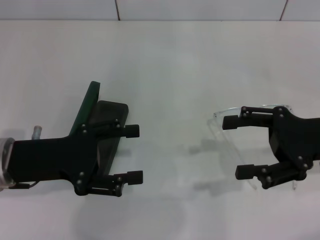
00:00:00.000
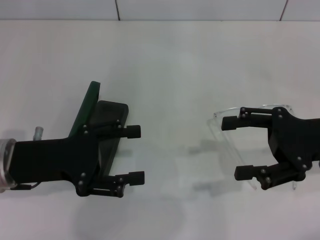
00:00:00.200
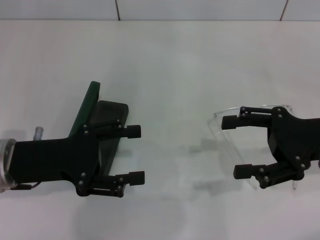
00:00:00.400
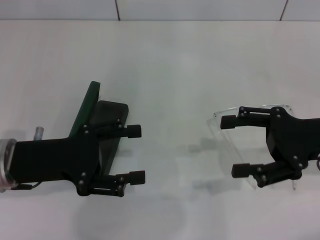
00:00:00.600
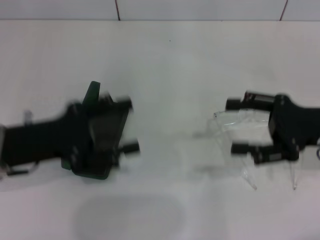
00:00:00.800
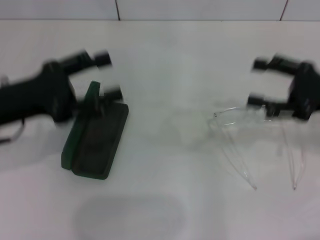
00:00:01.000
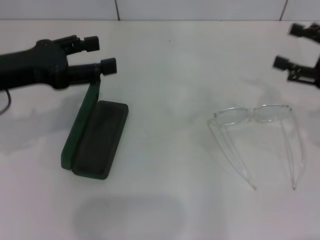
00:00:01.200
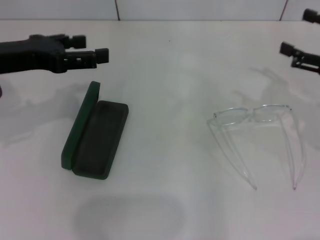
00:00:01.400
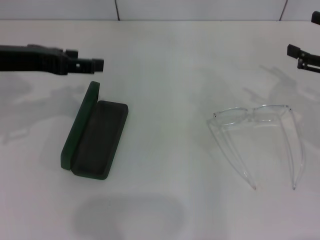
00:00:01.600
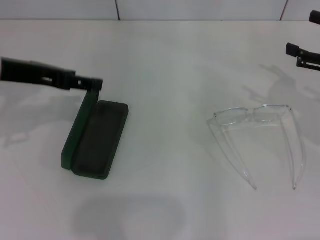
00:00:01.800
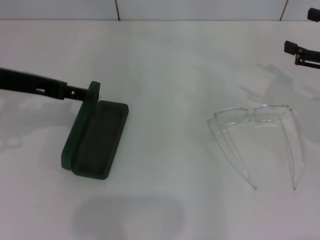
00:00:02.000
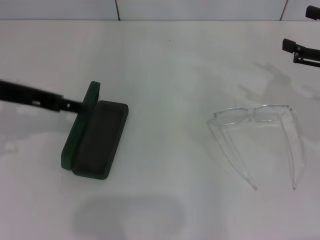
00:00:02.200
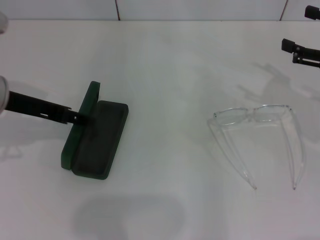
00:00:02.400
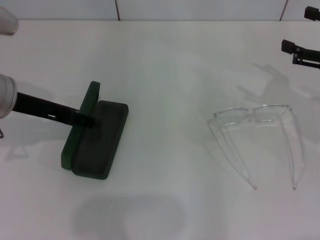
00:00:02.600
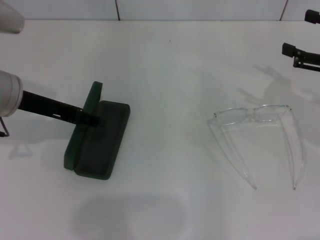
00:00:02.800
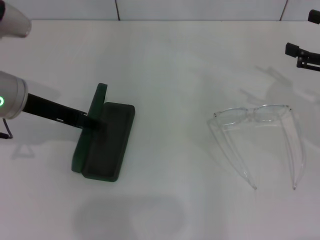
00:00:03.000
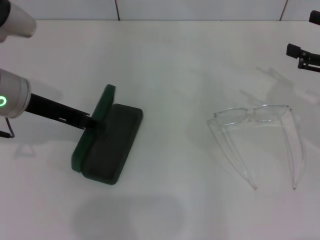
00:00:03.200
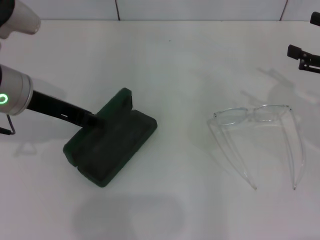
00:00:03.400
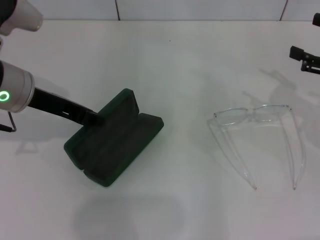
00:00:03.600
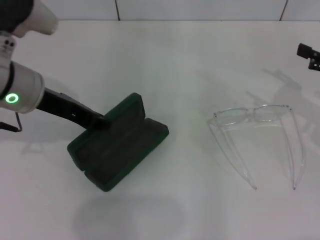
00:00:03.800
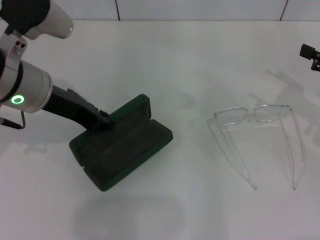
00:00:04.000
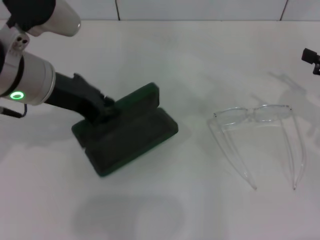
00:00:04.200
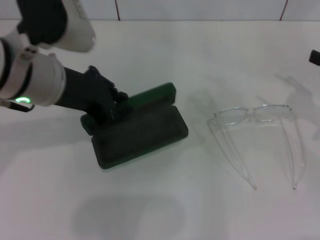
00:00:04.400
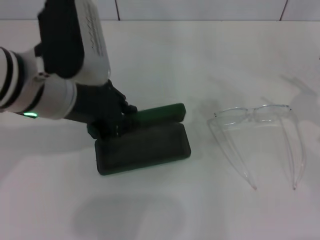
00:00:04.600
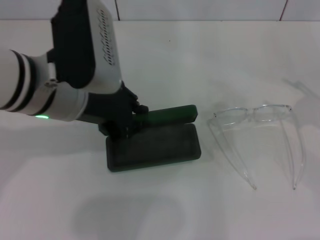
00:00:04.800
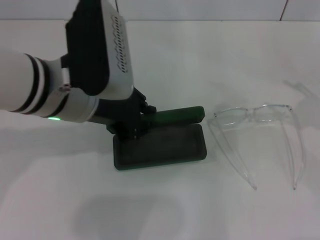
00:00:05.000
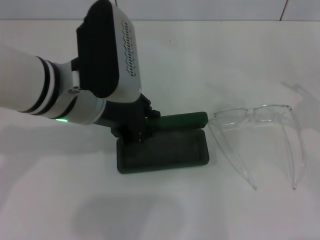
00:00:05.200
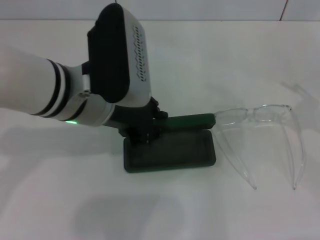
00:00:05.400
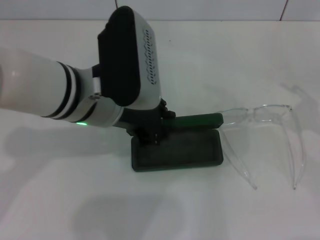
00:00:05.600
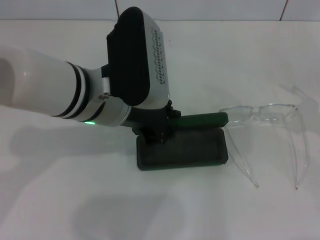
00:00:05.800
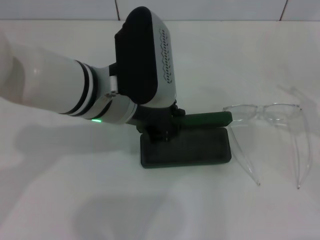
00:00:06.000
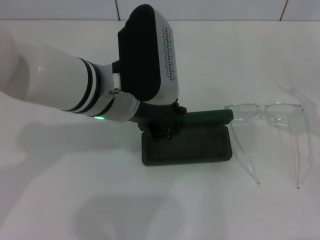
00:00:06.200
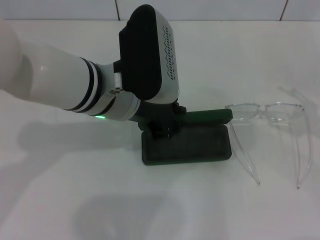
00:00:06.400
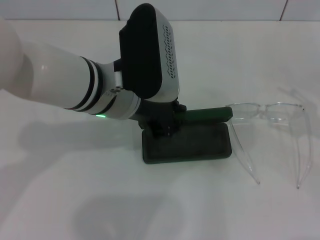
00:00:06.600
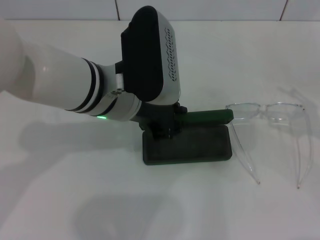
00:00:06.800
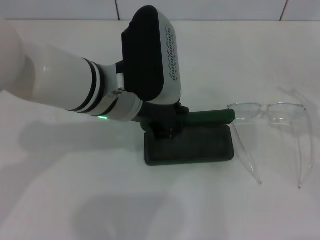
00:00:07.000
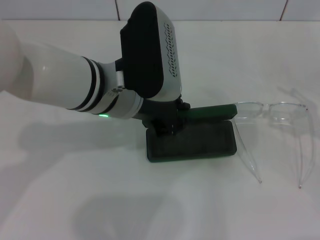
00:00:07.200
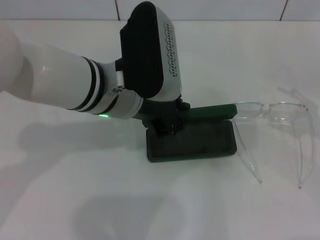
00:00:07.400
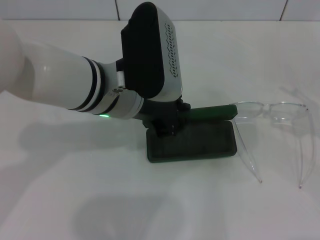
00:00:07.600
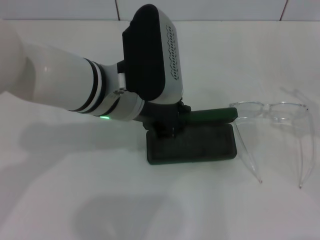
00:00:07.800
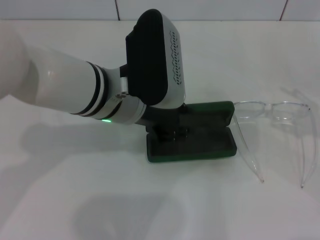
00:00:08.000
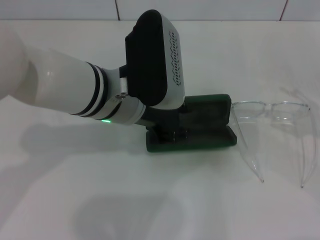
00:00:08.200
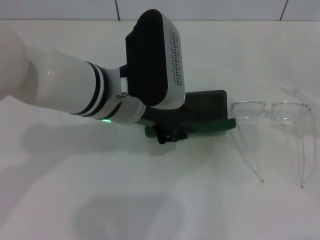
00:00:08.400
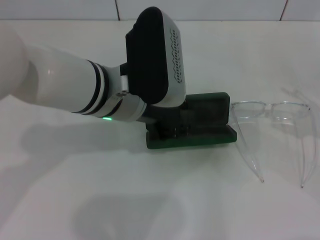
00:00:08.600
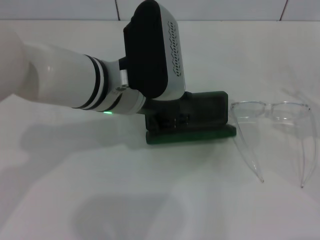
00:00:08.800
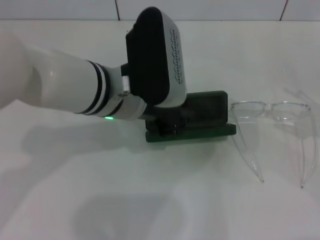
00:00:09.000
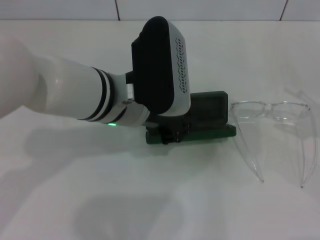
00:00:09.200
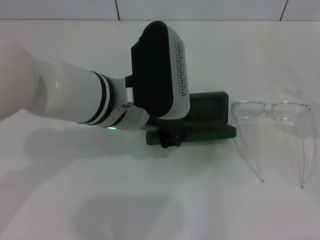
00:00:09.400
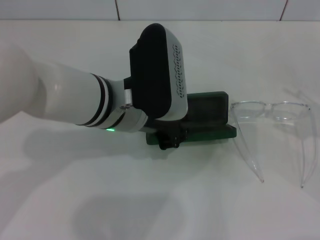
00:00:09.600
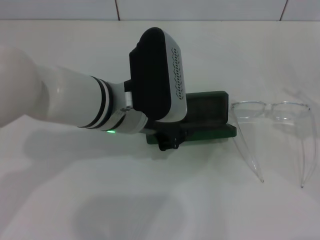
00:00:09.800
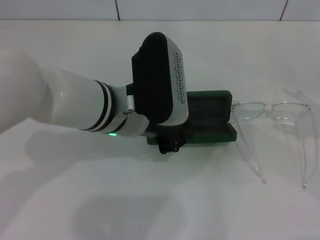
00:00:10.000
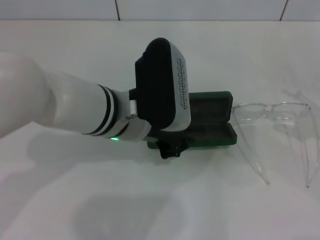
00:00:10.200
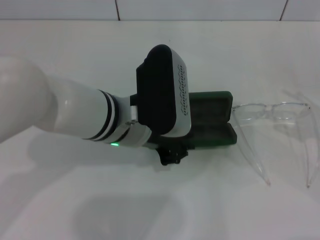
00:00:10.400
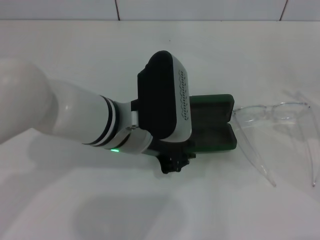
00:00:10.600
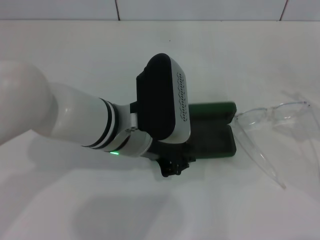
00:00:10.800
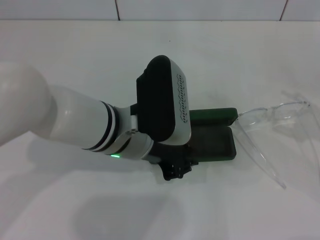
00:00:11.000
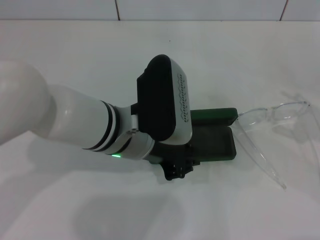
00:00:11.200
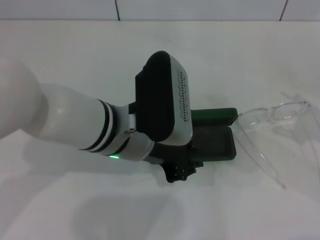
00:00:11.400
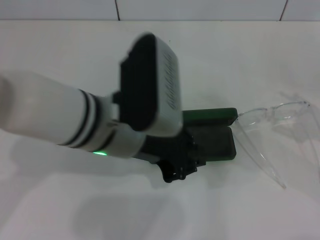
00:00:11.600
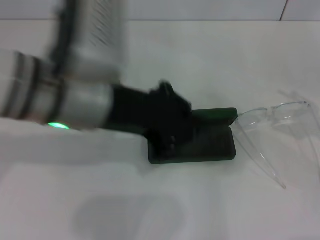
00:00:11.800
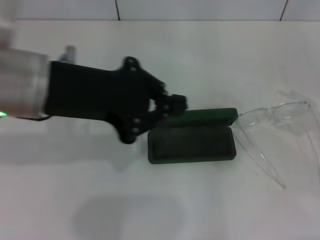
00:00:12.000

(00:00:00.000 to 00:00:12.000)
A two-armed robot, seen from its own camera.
Step, 00:00:00.000 - 00:00:03.400: Grab the glasses case with your left hand.
Step, 00:00:03.600 - 00:00:10.800: Place the glasses case in the center of the table with your left hand.
00:00:00.000 - 00:00:01.600: The right gripper heads to the right, covering some 10 cm, while the left gripper is displaced upward and forward by about 10 cm.
00:00:01.600 - 00:00:03.000: The left gripper shifts by some 5 cm.
00:00:03.000 - 00:00:04.400: The left gripper heads to the right and upward, covering some 10 cm, and closes its fingers.
00:00:04.400 - 00:00:06.000: The left gripper is displaced to the right by some 5 cm.
00:00:06.000 - 00:00:09.000: Both grippers stay about where they are.
00:00:09.000 - 00:00:10.400: The grippers move only a little.
00:00:10.400 - 00:00:12.000: The left gripper shifts about 15 cm upward and to the left; the right gripper shifts by some 5 cm.

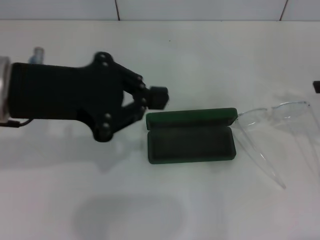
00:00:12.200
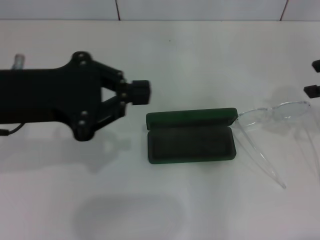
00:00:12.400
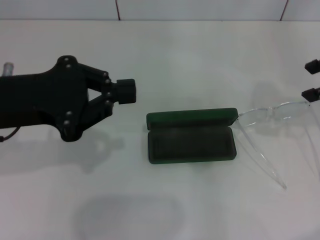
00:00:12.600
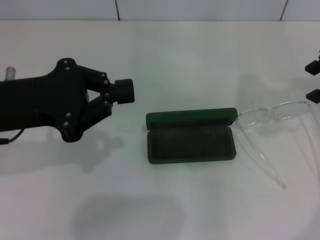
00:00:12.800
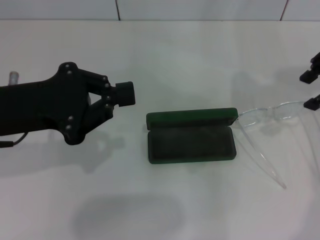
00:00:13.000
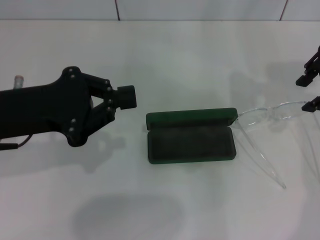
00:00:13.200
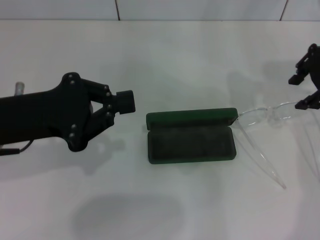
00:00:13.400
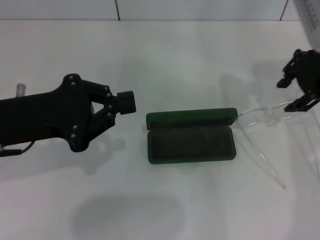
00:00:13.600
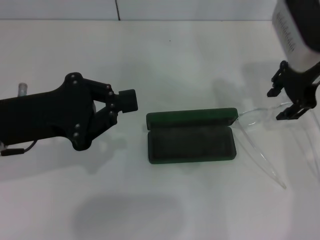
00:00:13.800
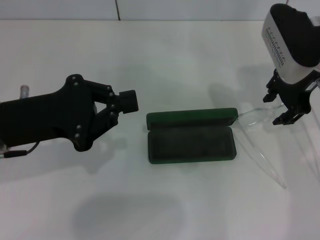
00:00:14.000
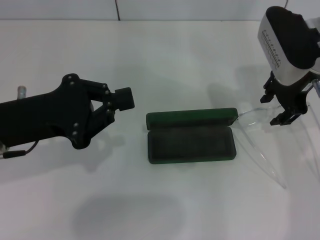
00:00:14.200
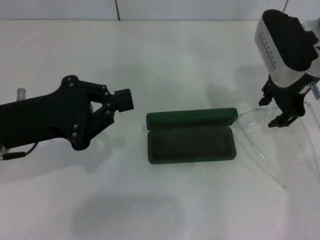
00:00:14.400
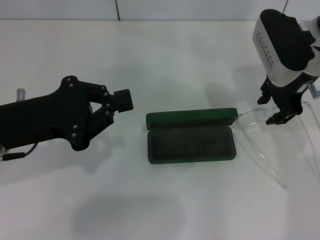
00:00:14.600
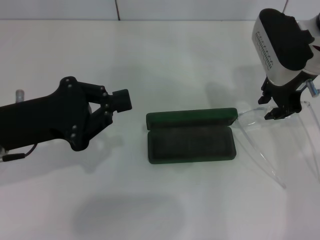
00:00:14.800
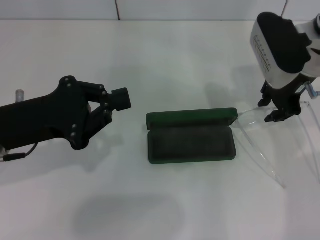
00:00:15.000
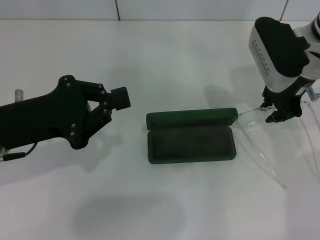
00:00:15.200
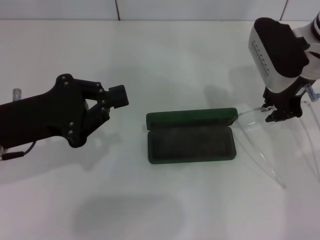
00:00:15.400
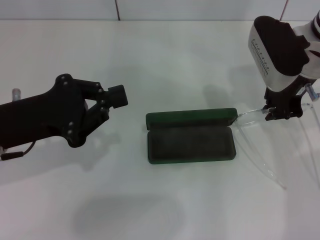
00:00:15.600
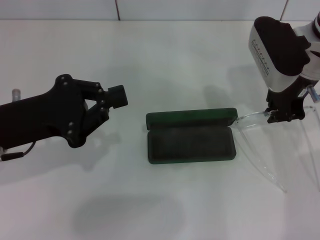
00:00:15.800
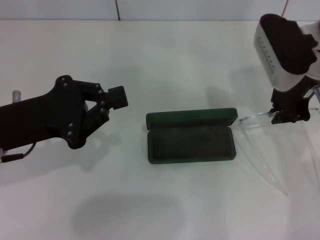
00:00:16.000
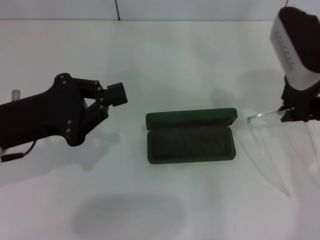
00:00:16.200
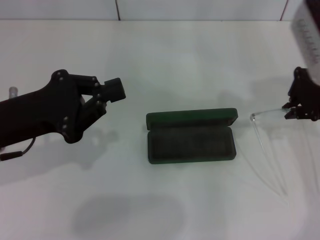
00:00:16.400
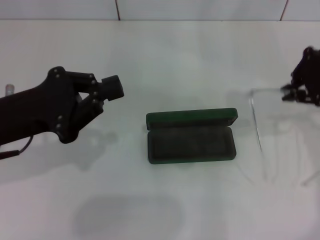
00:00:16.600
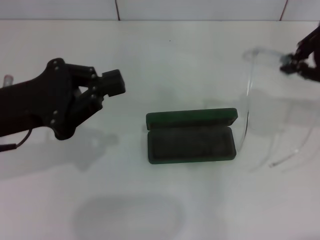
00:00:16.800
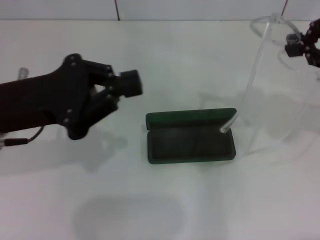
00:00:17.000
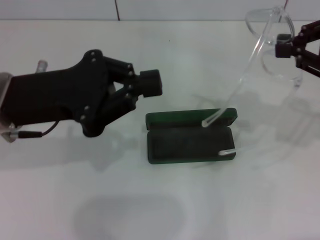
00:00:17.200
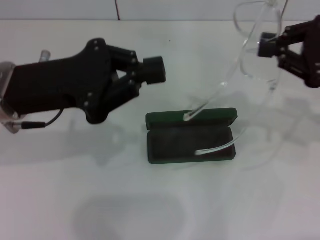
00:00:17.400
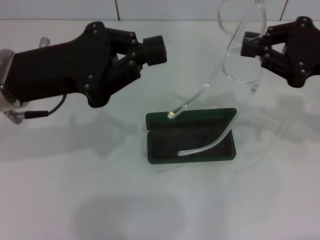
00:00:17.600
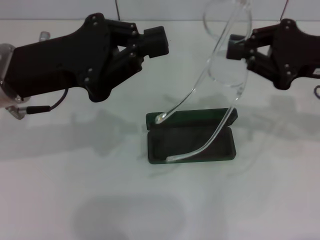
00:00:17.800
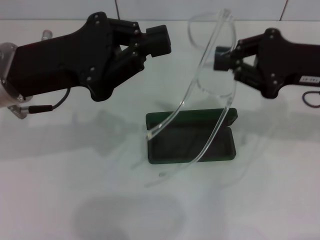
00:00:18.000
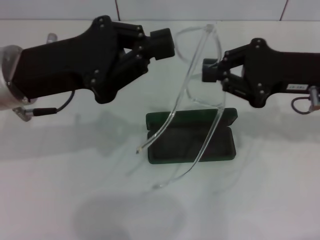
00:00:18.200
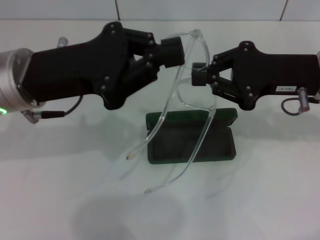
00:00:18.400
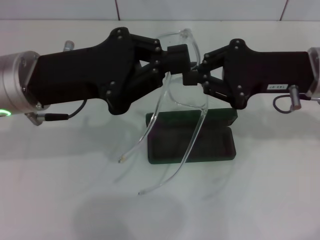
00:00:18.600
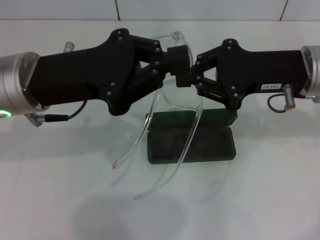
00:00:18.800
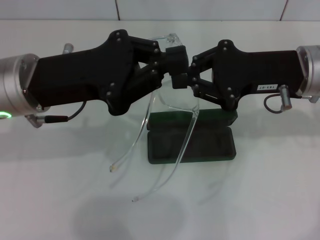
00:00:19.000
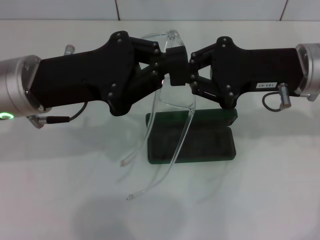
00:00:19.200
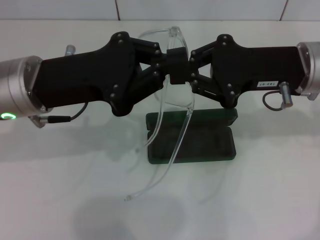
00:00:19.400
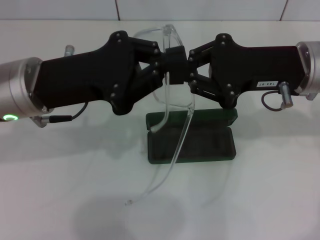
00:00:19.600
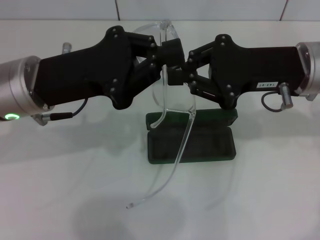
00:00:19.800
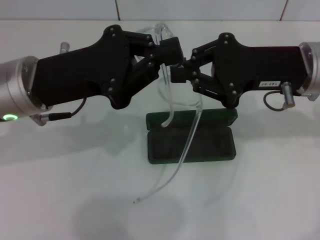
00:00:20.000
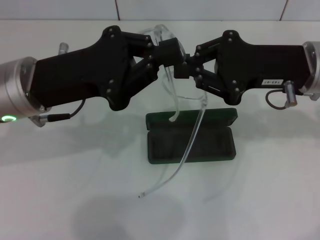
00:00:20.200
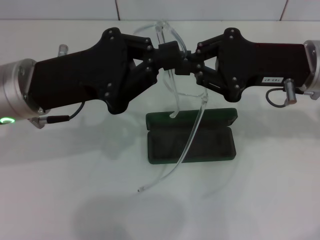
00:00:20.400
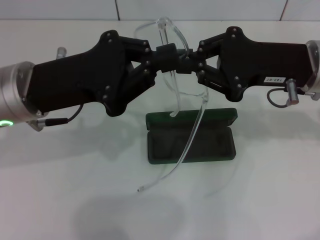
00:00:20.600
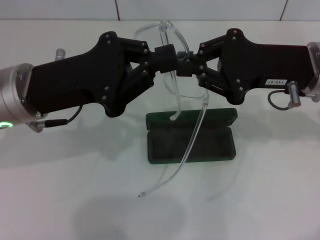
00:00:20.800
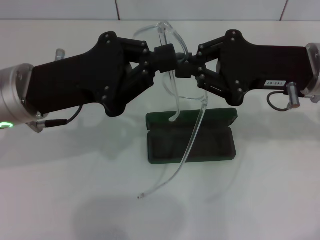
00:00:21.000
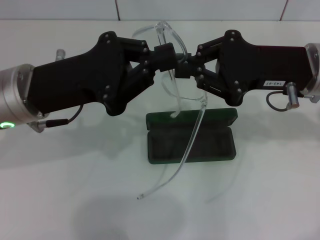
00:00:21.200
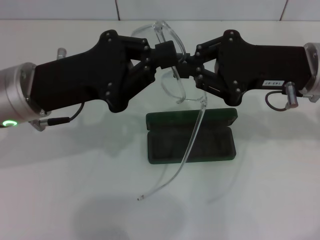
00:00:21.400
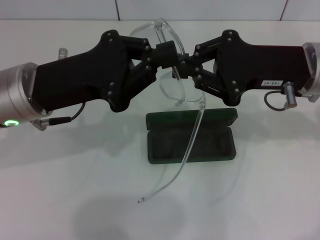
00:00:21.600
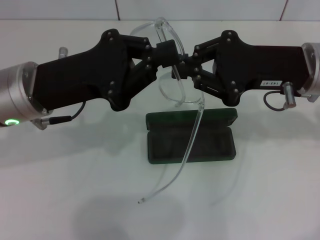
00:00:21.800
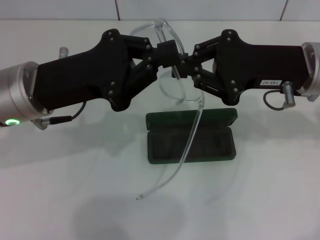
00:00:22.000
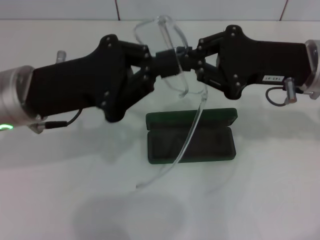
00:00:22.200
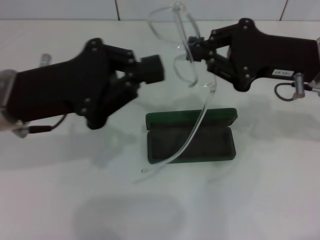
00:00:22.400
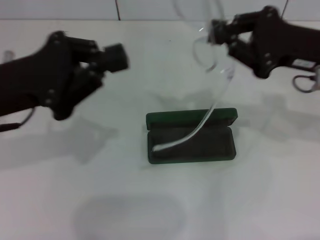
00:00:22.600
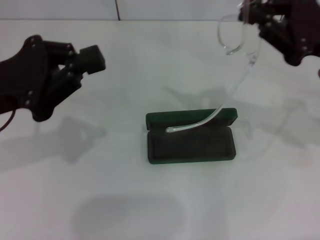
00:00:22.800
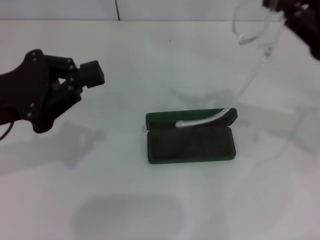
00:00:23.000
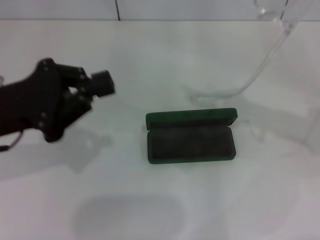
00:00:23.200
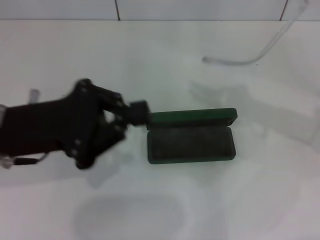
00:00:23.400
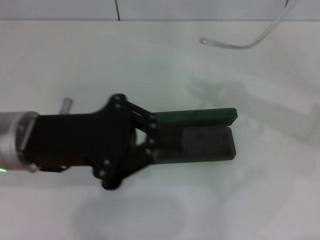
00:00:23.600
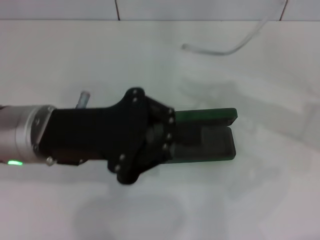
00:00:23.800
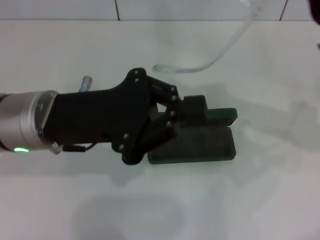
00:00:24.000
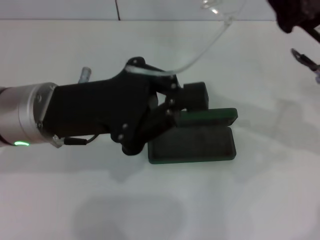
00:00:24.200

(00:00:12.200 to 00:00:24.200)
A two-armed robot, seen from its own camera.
Step, 00:00:12.200 - 00:00:15.600: Grab the eyeglass frame with your right hand.
00:00:12.200 - 00:00:13.800: The right gripper travels to the left and forward by some 20 cm. Meanwhile the left gripper heads downward, covering some 10 cm.
00:00:13.800 - 00:00:15.200: The grippers make only small movements.
00:00:15.200 - 00:00:16.600: The right gripper moves upward, backward and to the right, about 10 cm.
00:00:16.600 - 00:00:18.200: The right gripper moves downward, approximately 10 cm. Meanwhile the left gripper heads to the right, covering some 5 cm.
00:00:18.200 - 00:00:19.800: The grippers stay close to where they were, moving slightly.
00:00:19.800 - 00:00:21.200: Both grippers stay put.
00:00:21.200 - 00:00:22.600: The left gripper heads to the left, covering roughly 5 cm.
00:00:22.600 - 00:00:24.200: The left gripper goes about 10 cm to the right.
